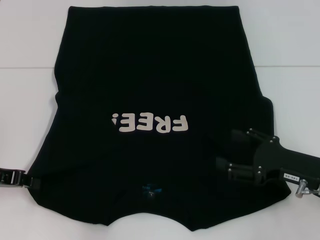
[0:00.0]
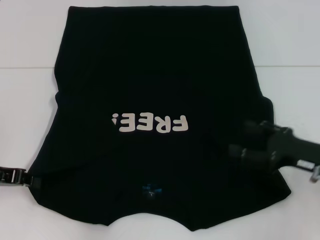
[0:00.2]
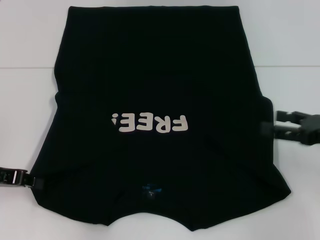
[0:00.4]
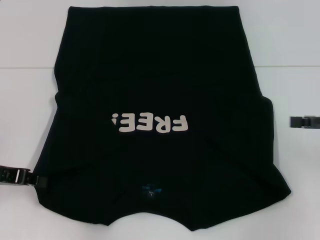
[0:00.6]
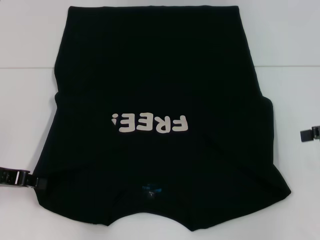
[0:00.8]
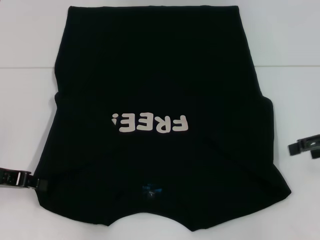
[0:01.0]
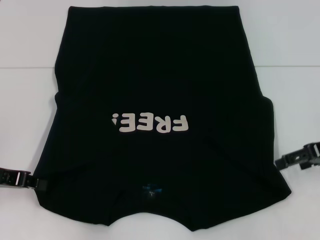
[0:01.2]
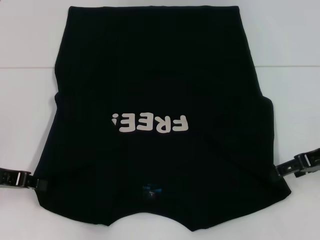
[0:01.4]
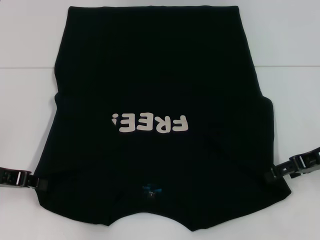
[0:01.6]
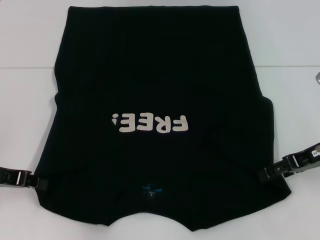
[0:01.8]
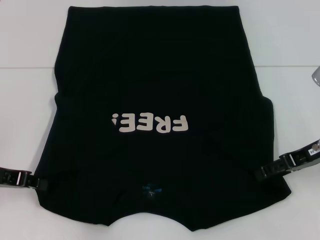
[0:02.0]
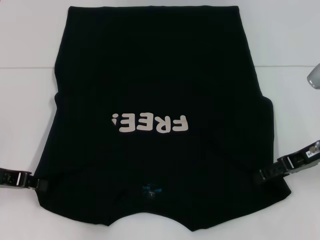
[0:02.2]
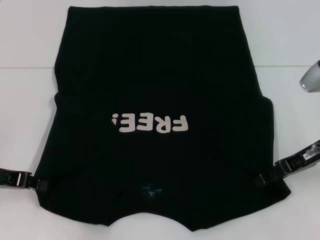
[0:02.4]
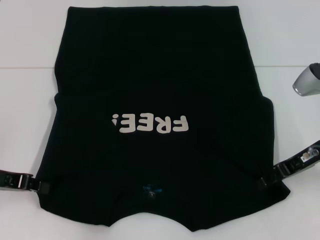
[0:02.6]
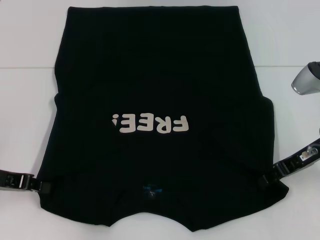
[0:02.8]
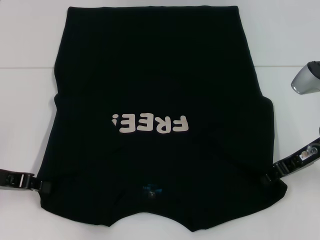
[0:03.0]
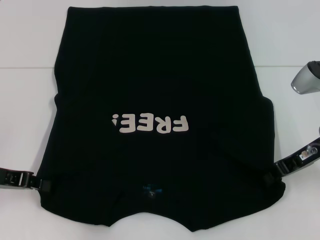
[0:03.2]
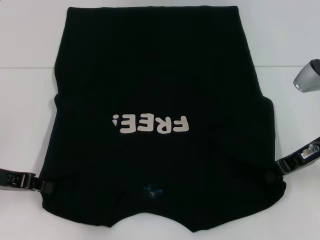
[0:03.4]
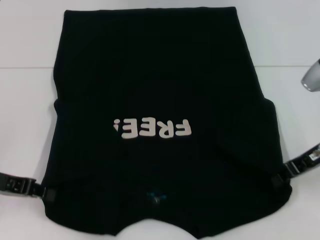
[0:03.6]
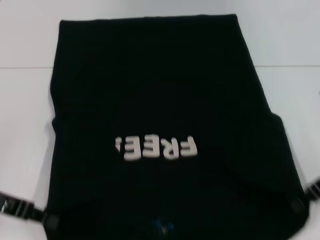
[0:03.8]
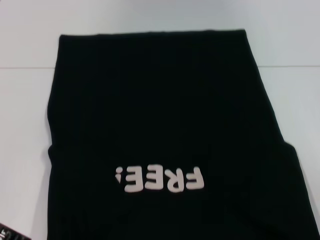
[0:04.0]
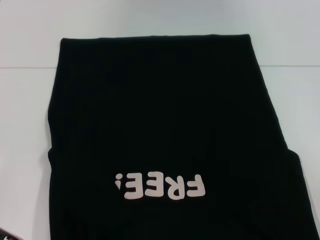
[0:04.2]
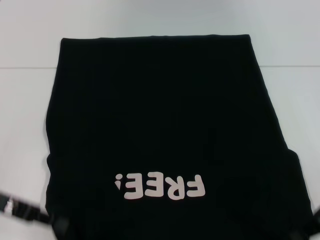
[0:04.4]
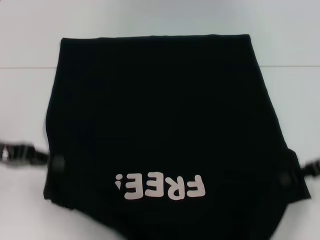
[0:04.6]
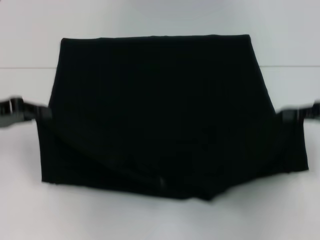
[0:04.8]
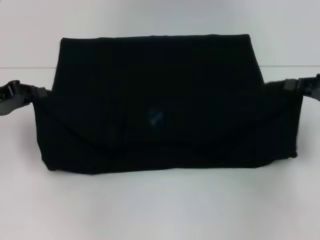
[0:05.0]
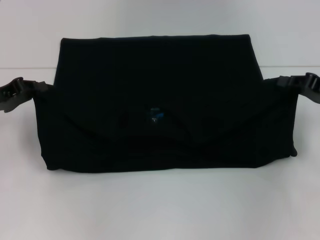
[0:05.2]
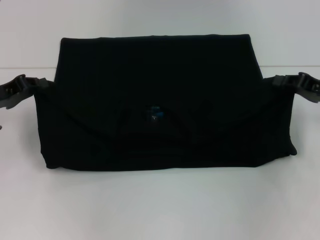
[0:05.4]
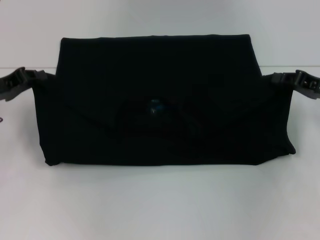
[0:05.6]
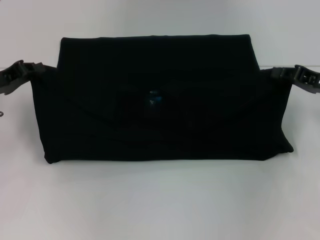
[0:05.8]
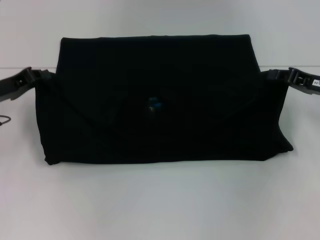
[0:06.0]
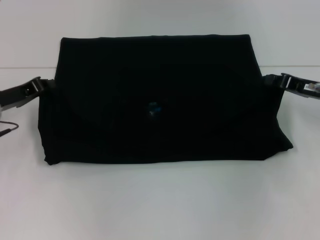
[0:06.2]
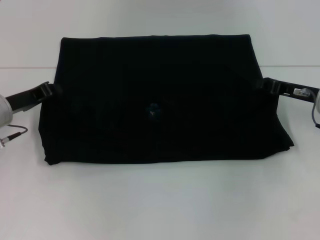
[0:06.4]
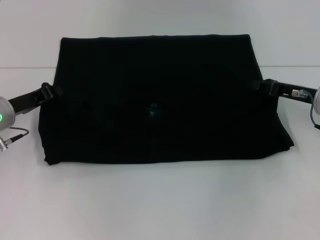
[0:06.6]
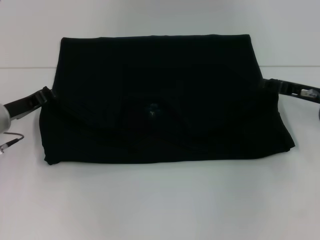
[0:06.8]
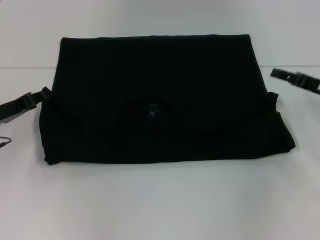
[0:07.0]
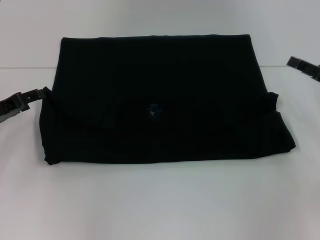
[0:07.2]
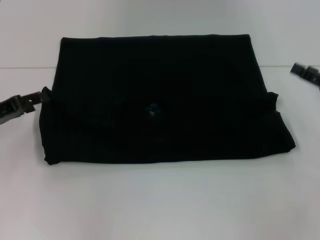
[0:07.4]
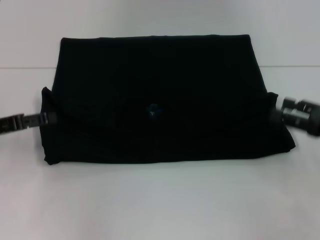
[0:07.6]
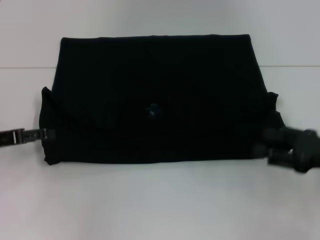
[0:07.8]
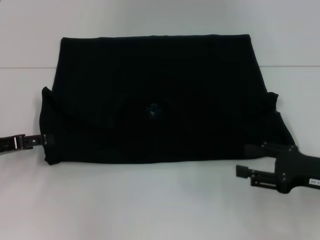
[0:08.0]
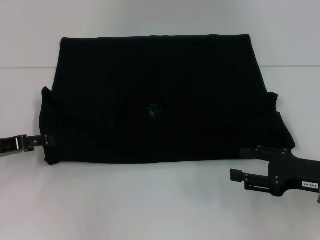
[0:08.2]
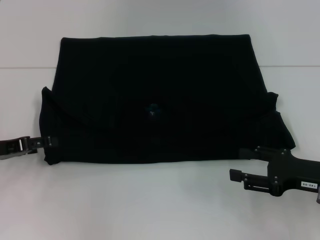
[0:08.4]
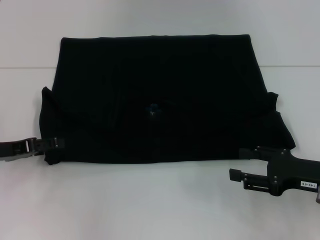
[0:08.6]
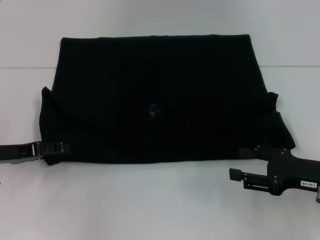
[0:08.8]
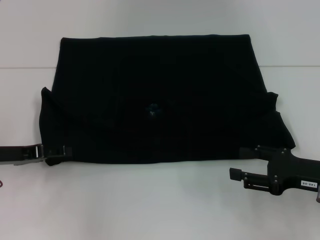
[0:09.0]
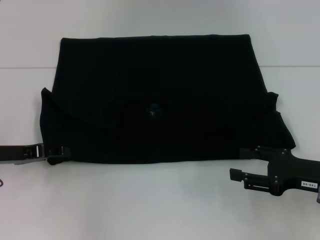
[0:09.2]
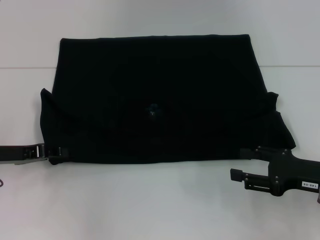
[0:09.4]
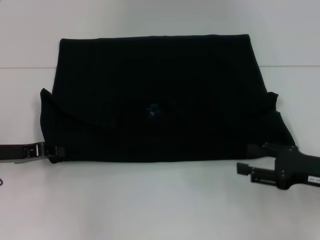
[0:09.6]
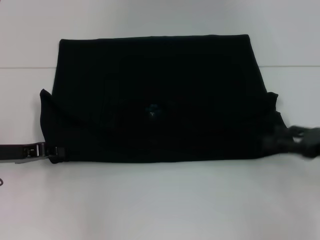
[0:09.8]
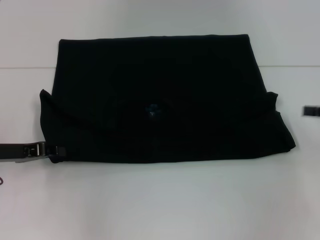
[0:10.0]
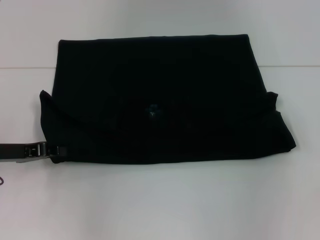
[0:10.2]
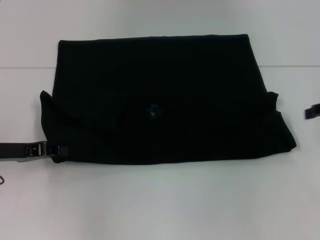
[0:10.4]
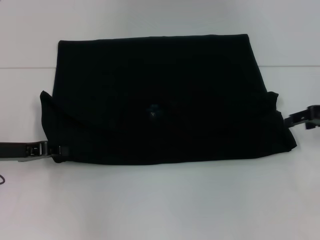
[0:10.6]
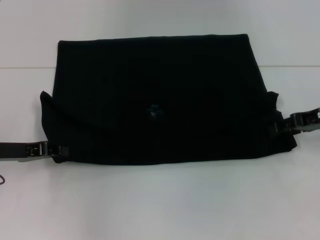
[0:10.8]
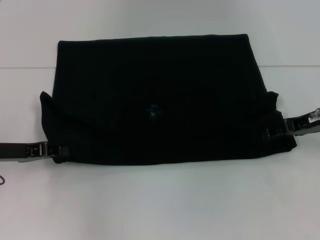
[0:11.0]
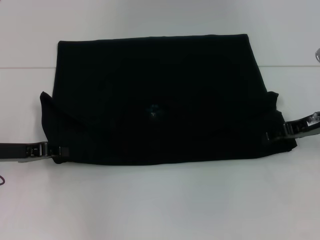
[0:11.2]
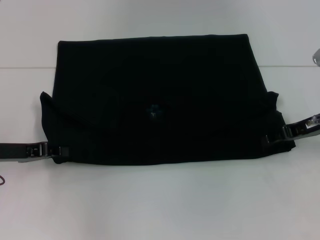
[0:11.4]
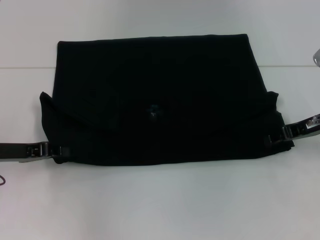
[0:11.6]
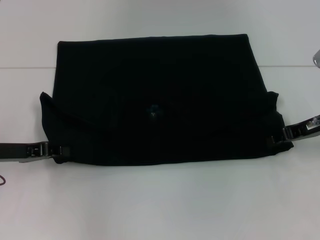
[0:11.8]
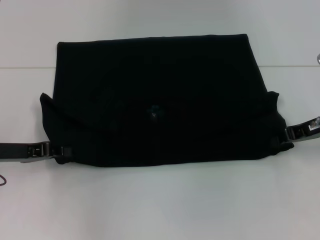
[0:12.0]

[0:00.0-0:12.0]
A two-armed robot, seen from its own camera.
Step, 0:00.2 to 0:03.4: Grab the bottom right corner with your right hand.
Step, 0:03.6 to 0:07.2: Fold the clothes with your left hand.
Step, 0:03.6 to 0:07.2: Fold the clothes with your right hand.
0:00.0 to 0:01.6: The right gripper is displaced forward and upward by about 10 cm, and goes to the right and returns, roughly 10 cm each way.
0:01.6 to 0:03.0: The grippers stay close to where they were, moving slightly.
0:03.0 to 0:04.4: The right gripper shifts some 5 cm backward, and closes up.
0:04.4 to 0:06.0: The two grippers go some 10 cm forward.
0:06.0 to 0:07.6: The left gripper shifts by some 5 cm, and opens its fingers. Meanwhile the right gripper moves backward, approximately 10 cm, and opens its fingers.
0:07.6 to 0:09.0: The right gripper heads to the left, covering roughly 5 cm.
0:09.0 to 0:10.4: The right gripper is displaced forward, upward and to the right by approximately 15 cm; the left gripper closes up.
0:10.4 to 0:12.0: The right gripper moves to the left, some 5 cm, and closes up.

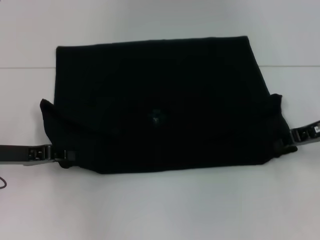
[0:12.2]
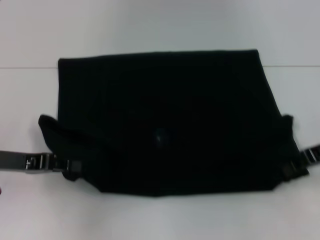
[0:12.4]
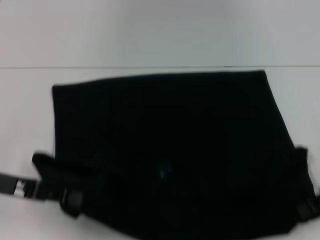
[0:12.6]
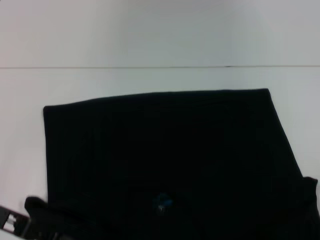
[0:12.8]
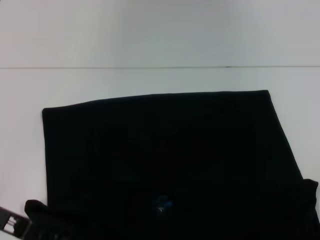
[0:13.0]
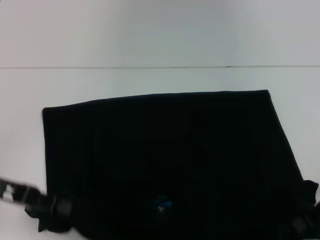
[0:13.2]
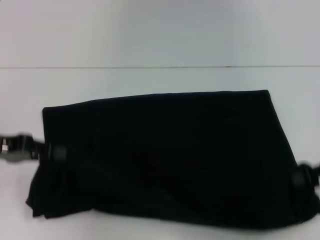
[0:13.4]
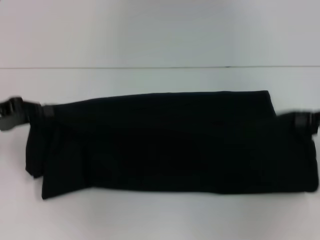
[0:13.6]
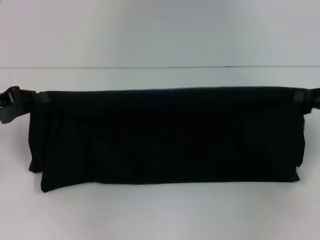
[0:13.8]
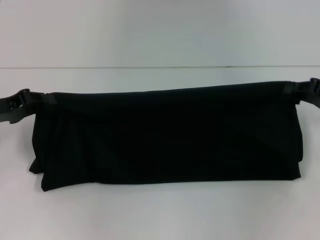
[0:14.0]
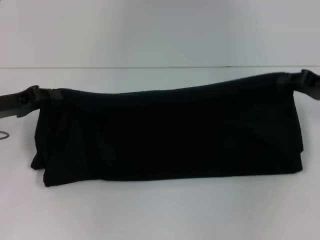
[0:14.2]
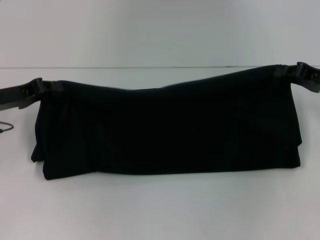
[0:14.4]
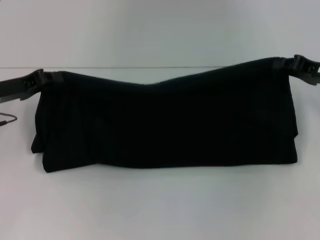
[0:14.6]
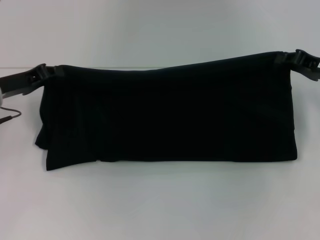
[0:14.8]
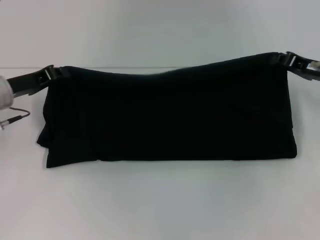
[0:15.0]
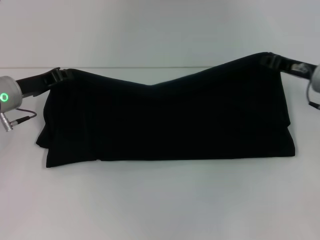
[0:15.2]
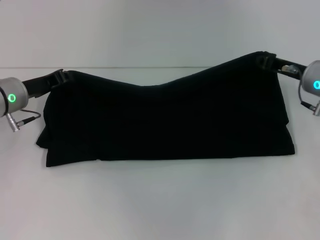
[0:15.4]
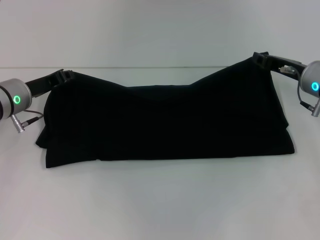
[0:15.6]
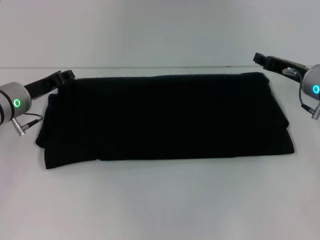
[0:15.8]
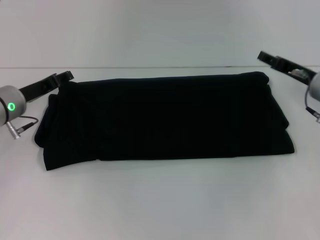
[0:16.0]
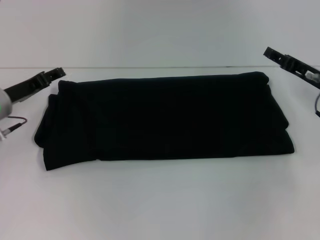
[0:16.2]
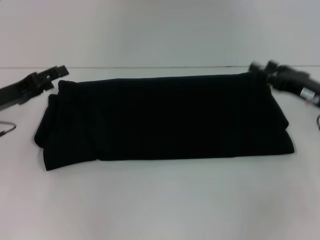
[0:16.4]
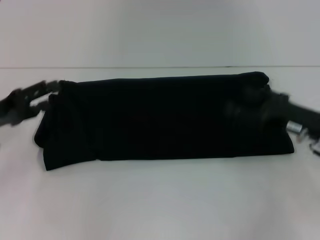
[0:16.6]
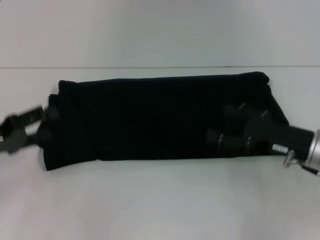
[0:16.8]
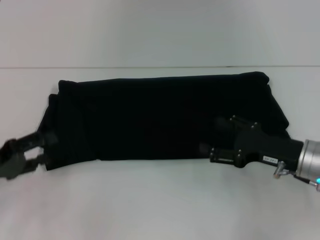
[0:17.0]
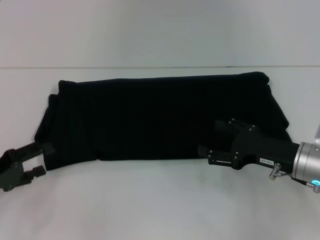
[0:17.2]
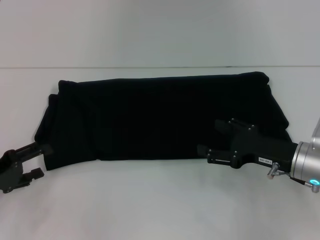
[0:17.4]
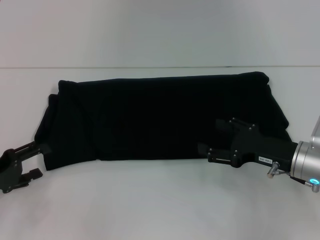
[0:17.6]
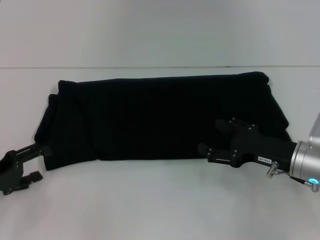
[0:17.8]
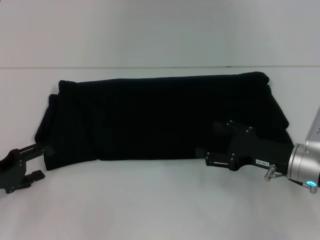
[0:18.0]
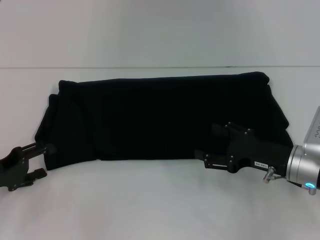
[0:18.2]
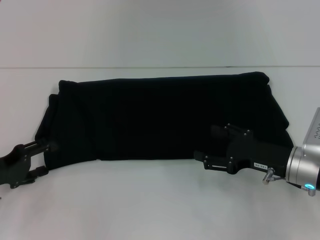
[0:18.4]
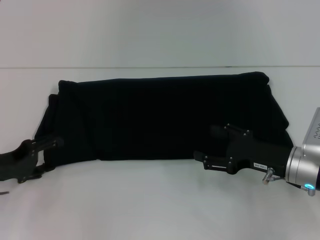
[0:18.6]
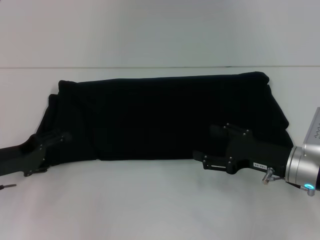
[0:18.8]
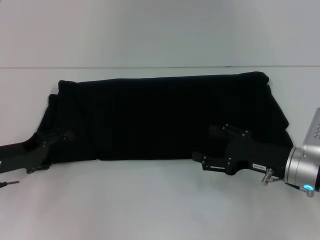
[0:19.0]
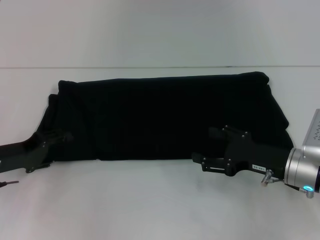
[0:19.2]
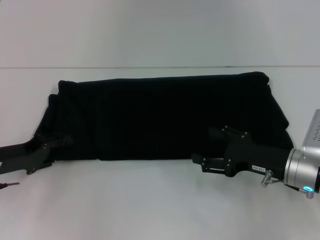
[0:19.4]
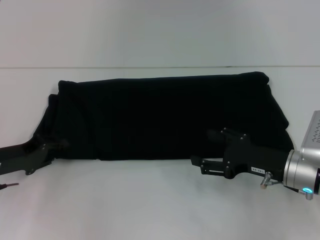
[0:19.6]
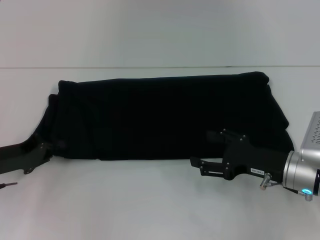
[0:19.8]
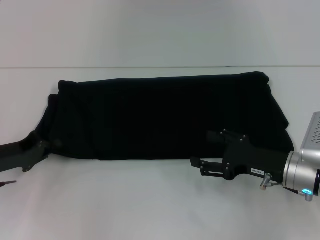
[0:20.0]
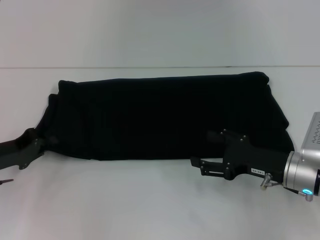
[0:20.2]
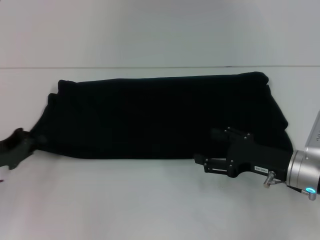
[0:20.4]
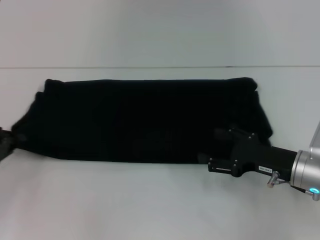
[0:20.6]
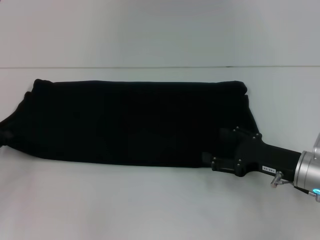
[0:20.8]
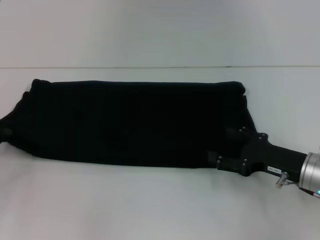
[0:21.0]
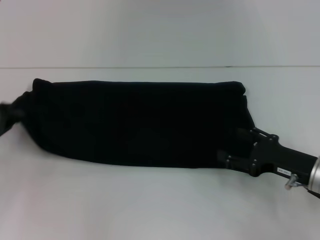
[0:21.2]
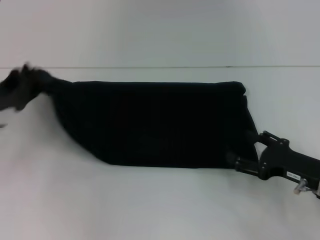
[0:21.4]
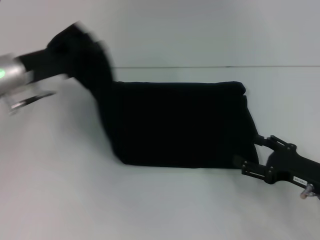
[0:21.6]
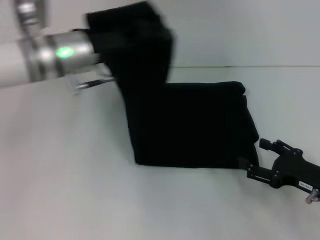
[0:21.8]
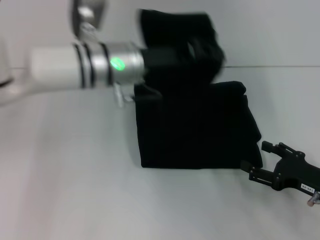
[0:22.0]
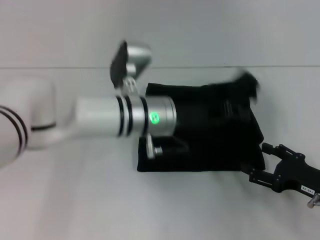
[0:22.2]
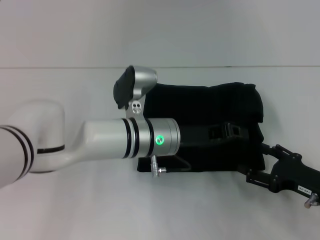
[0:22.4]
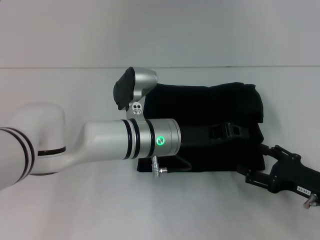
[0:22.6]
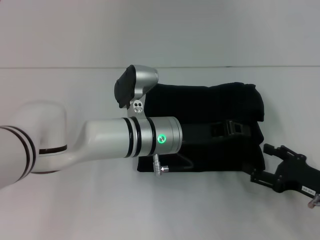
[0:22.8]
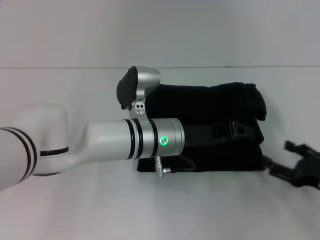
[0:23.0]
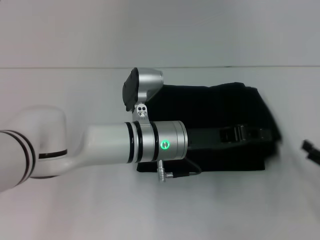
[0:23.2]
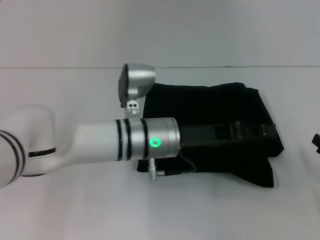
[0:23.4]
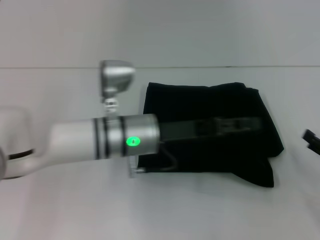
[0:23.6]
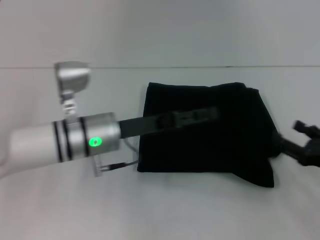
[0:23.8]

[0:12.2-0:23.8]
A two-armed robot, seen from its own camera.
Step, 0:13.0 to 0:15.8: Fold the clothes with your right hand.
Step, 0:13.0 to 0:23.4: Fold the clothes with your left hand.
0:12.2 to 0:13.6: The left gripper goes roughly 5 cm upward. Meanwhile the right gripper heads to the right, covering some 5 cm.
0:13.6 to 0:15.0: The left gripper is displaced forward and to the right by roughly 10 cm. Meanwhile the right gripper shifts some 10 cm forward and to the left.
0:15.0 to 0:16.6: Both grippers travel together backward, about 10 cm. The right gripper opens, while the left gripper opens up.
0:16.6 to 0:18.0: The right gripper moves some 5 cm; the left gripper moves downward and backward, approximately 10 cm.
0:18.0 to 0:19.4: The left gripper shifts by roughly 5 cm.
0:19.4 to 0:21.0: The left gripper moves to the left, some 5 cm, and closes its fingers.
0:21.0 to 0:22.4: The left gripper travels to the right by roughly 35 cm. The right gripper shifts by approximately 5 cm.
0:22.4 to 0:23.8: The left gripper moves to the left, about 10 cm, and opens its fingers.
